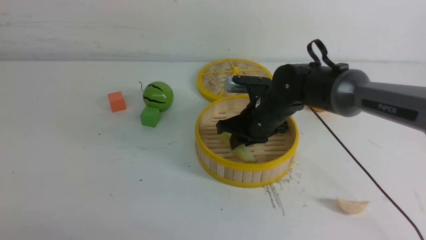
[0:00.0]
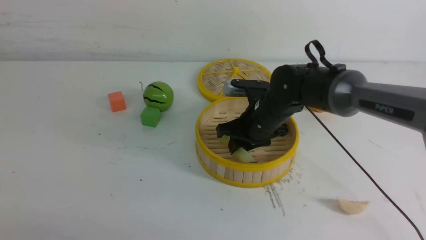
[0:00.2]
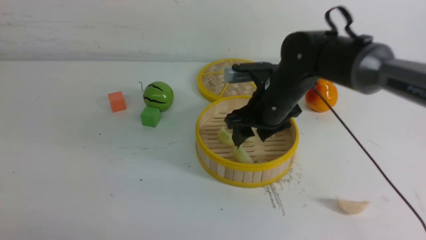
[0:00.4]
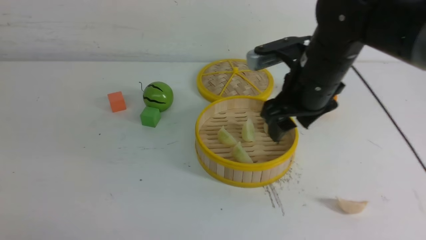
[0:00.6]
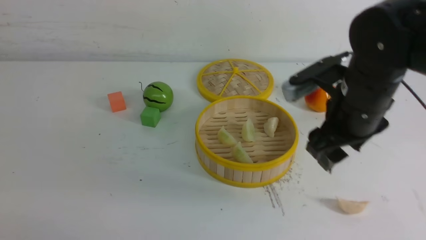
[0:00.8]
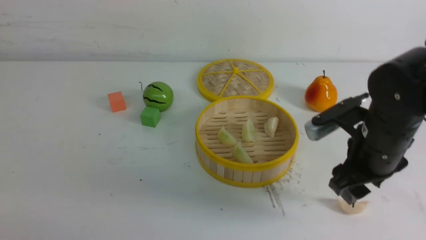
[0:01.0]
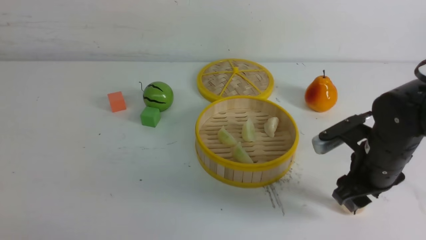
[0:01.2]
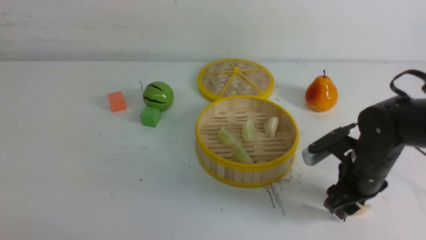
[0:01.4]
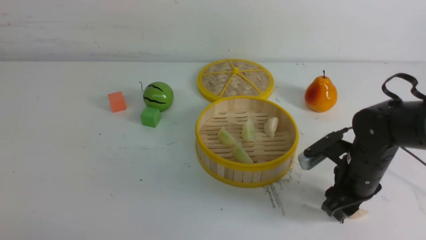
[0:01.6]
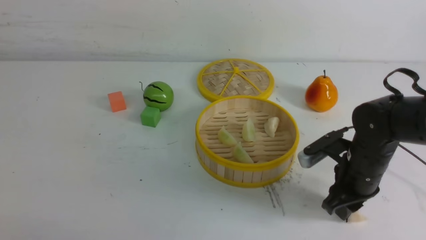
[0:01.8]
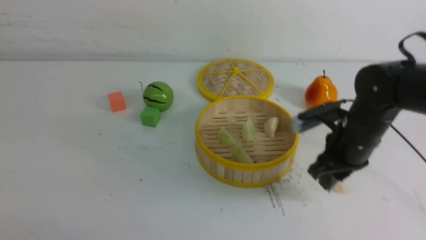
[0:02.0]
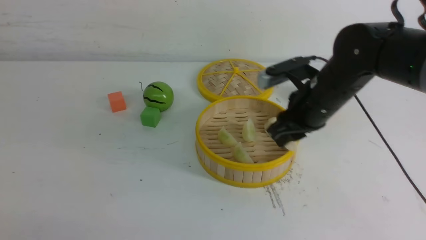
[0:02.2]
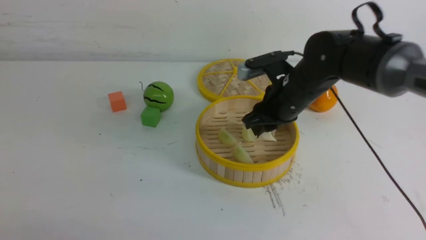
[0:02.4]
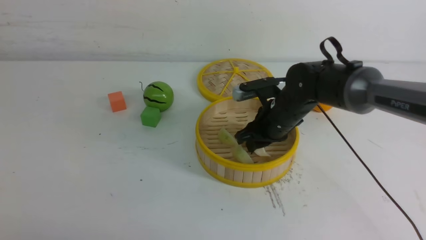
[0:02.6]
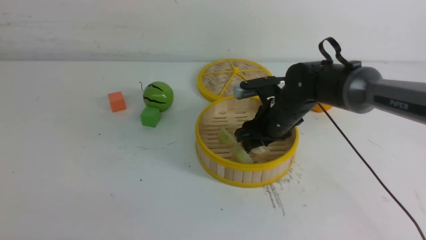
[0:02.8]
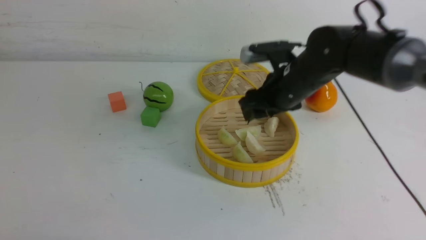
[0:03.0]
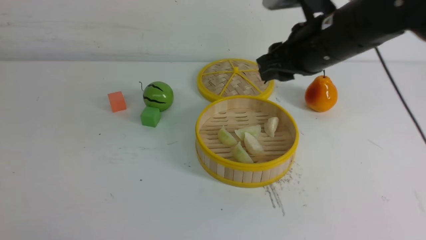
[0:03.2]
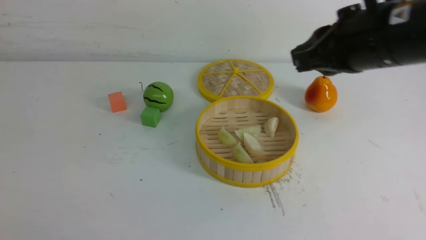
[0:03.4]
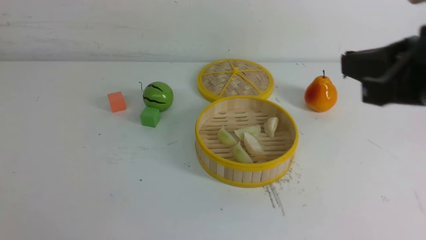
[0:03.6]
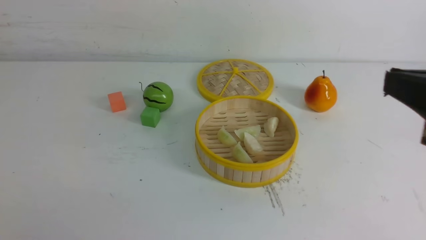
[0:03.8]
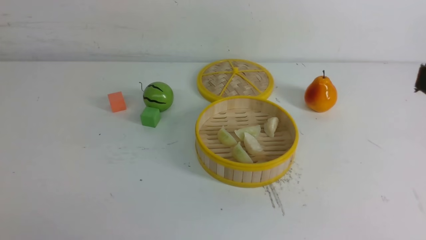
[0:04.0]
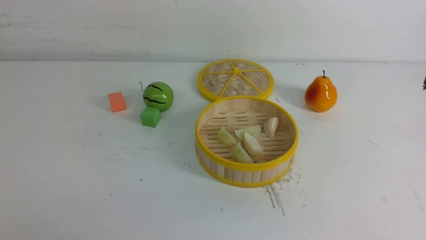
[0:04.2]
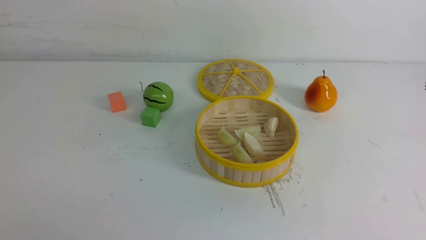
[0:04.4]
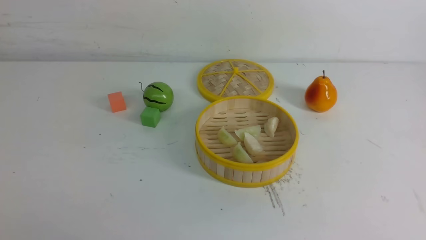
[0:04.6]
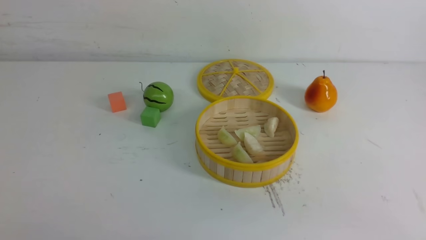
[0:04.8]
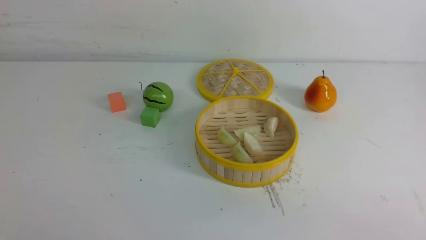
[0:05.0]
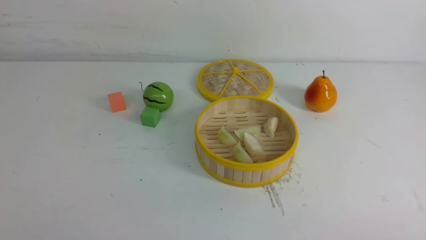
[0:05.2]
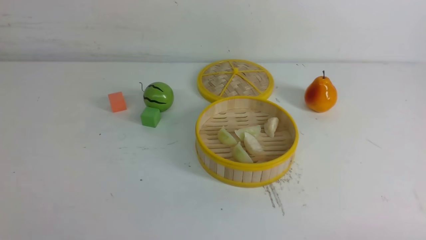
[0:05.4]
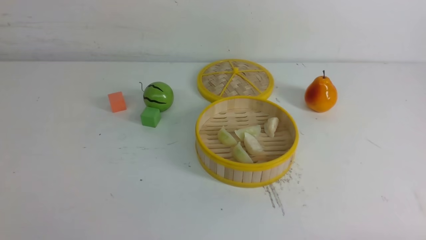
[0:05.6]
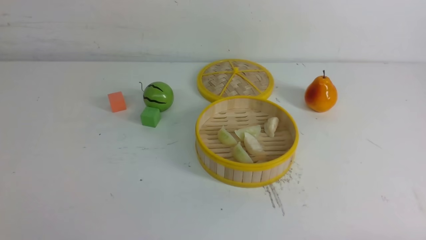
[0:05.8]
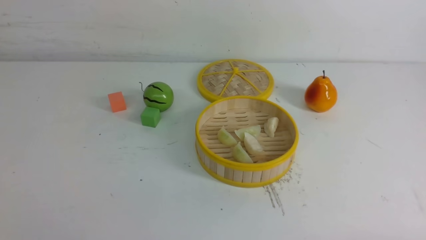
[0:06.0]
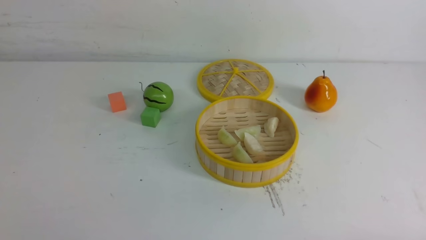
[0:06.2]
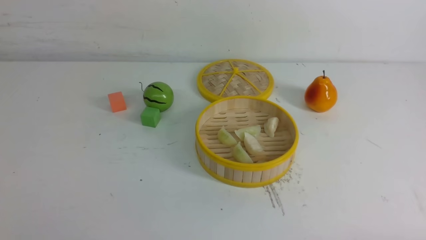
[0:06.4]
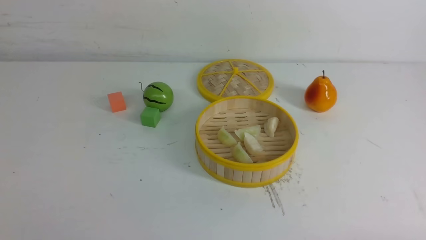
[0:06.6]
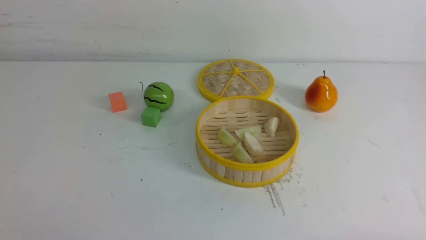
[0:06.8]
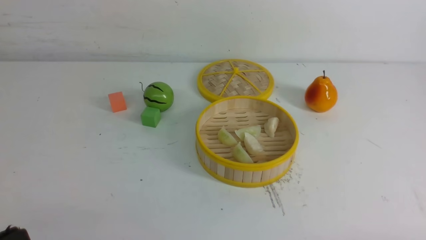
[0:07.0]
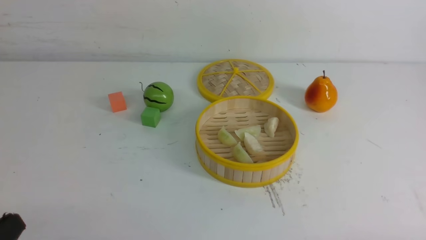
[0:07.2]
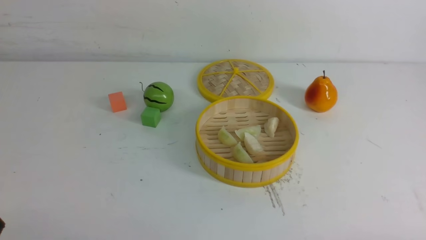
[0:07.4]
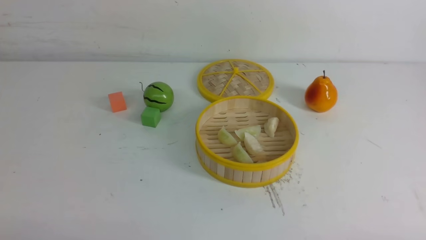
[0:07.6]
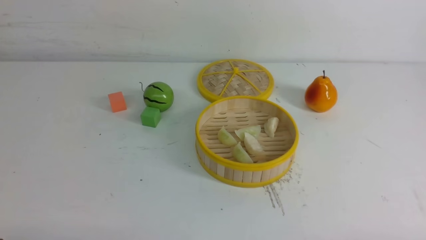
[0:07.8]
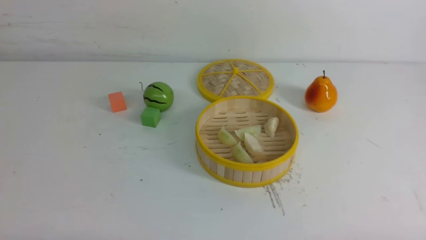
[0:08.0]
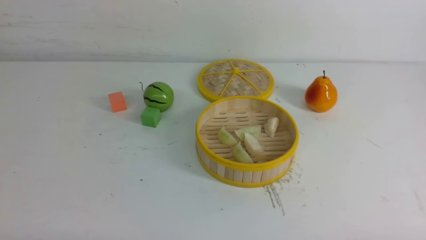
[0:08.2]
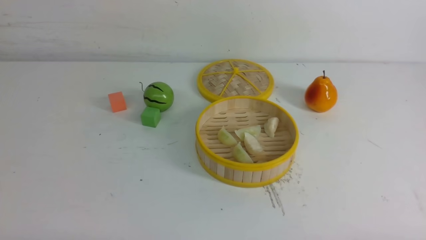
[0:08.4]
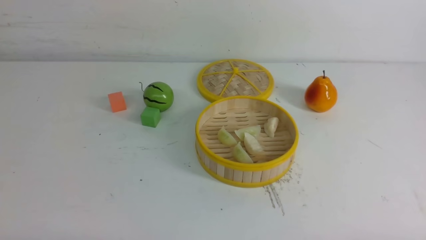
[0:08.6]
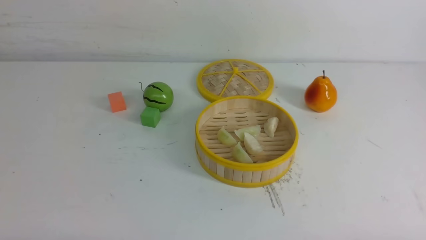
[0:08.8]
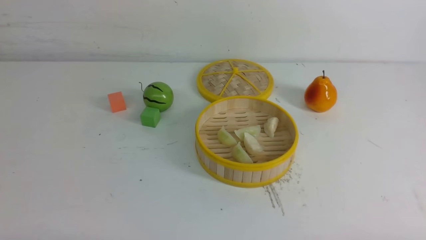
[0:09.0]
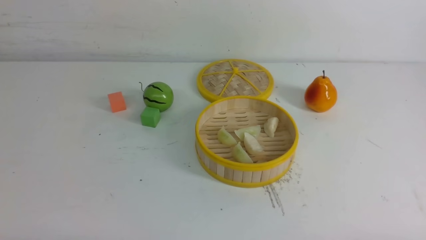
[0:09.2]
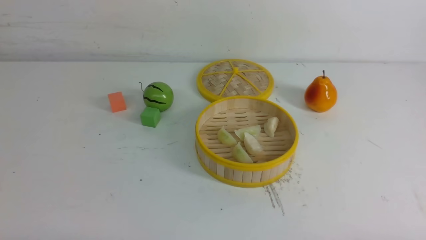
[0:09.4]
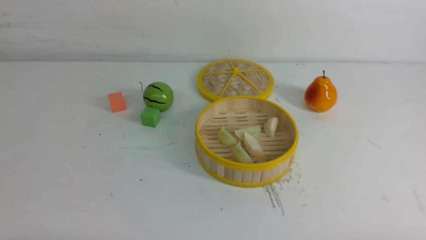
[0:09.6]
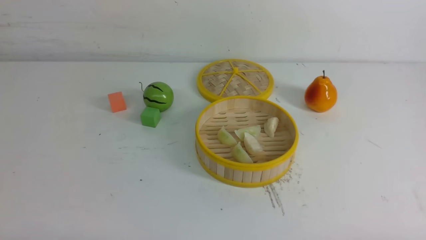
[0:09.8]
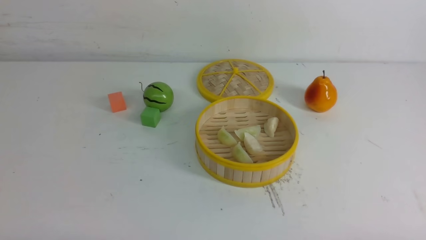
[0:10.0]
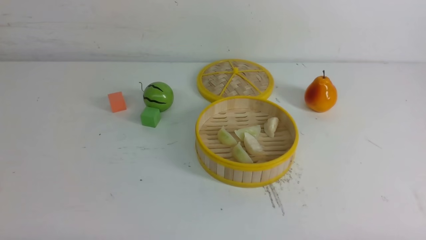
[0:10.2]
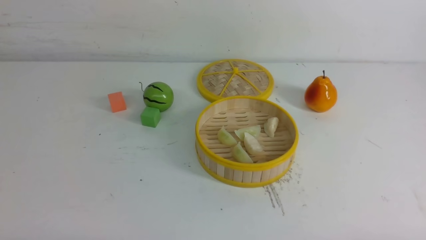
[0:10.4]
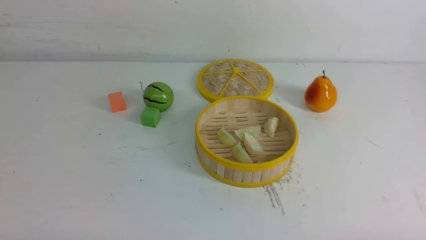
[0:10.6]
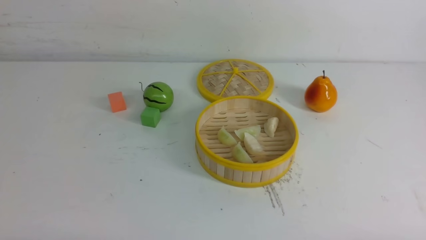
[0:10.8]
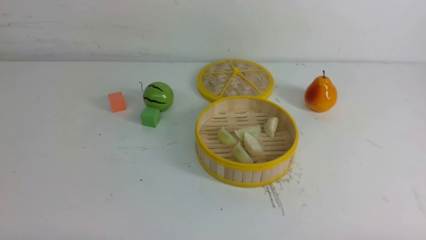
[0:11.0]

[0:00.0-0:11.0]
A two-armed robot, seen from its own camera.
Task of the whole recording: put the dumplings into the steamer on the white table.
Step, 0:00.4 to 0:01.8: use the right arm to grab a dumpling.
Step, 0:02.0 to 0:02.8: use the right arm to put the dumpling into the steamer.
0:00.0 to 0:01.6: The right gripper heads to the right and backward, covering roughly 15 cm.
0:01.6 to 0:03.2: The right gripper goes up and down, roughly 20 cm each way, reversing 2 times.
0:03.2 to 0:04.8: The right gripper heads backward and to the right, covering about 30 cm, and closes up.
0:09.4 to 0:11.0: The two grippers keep their place.
